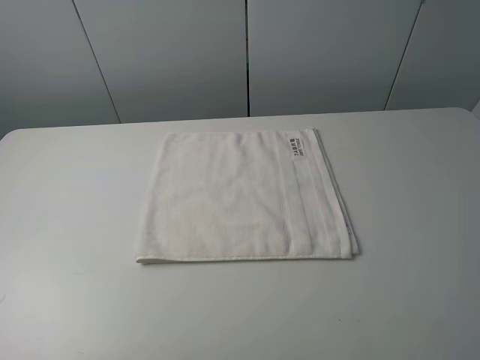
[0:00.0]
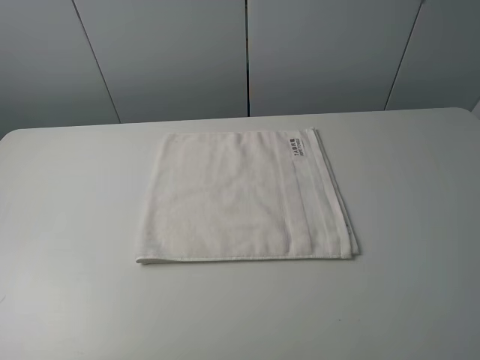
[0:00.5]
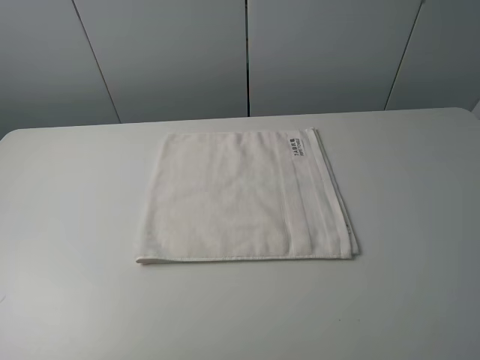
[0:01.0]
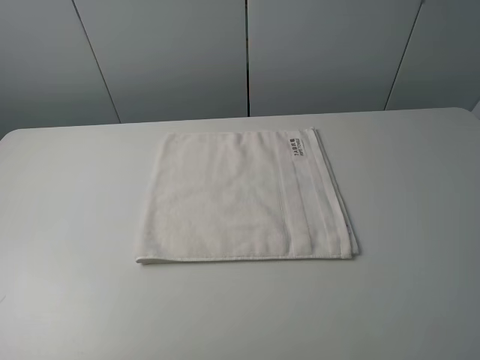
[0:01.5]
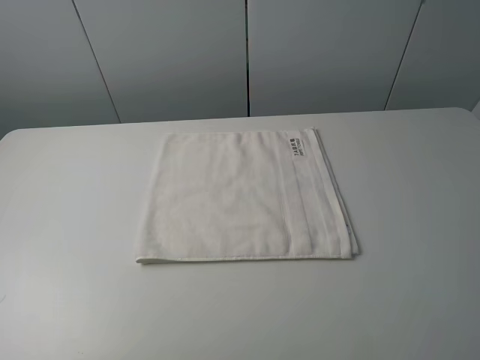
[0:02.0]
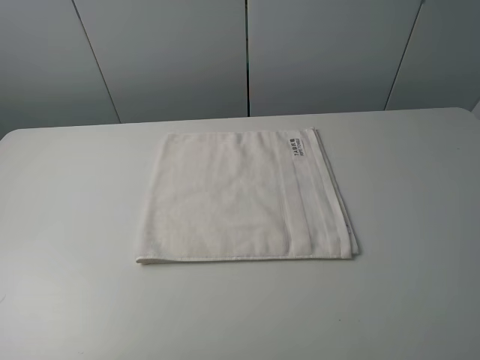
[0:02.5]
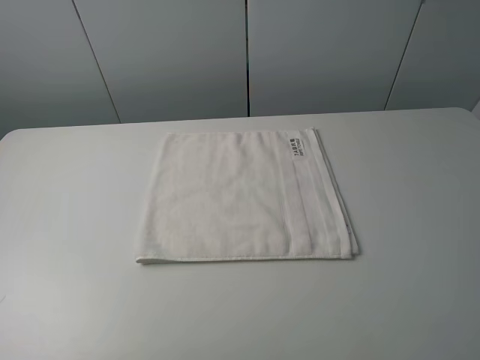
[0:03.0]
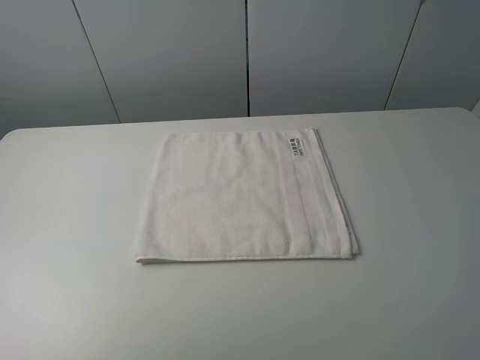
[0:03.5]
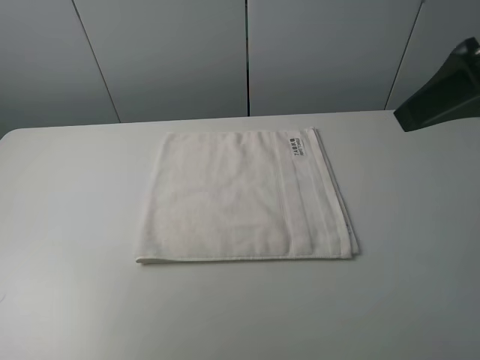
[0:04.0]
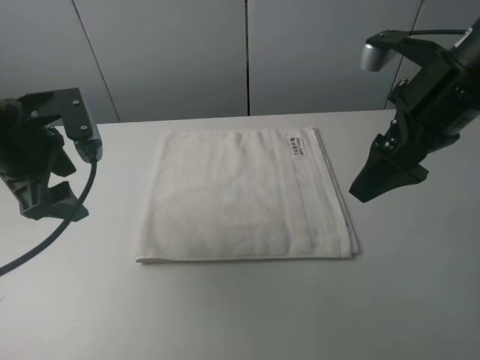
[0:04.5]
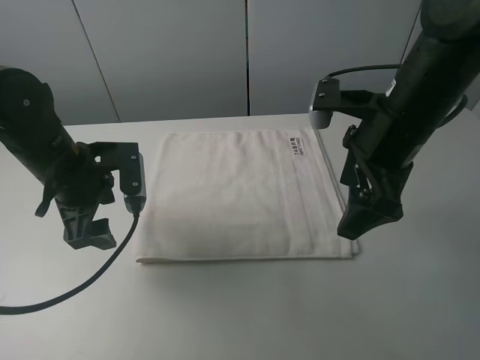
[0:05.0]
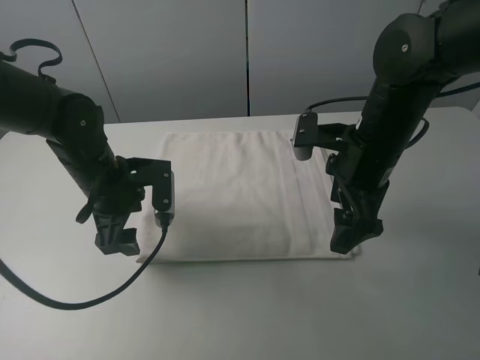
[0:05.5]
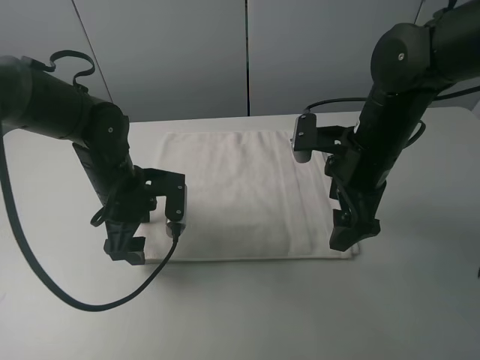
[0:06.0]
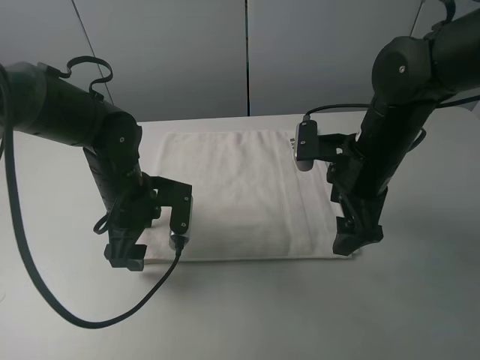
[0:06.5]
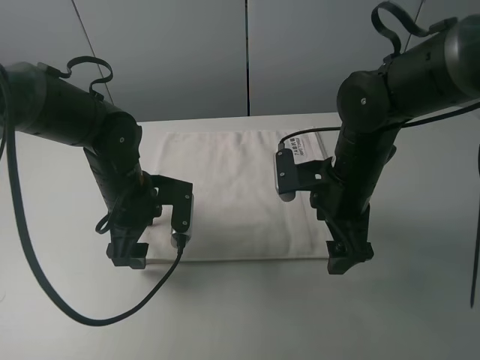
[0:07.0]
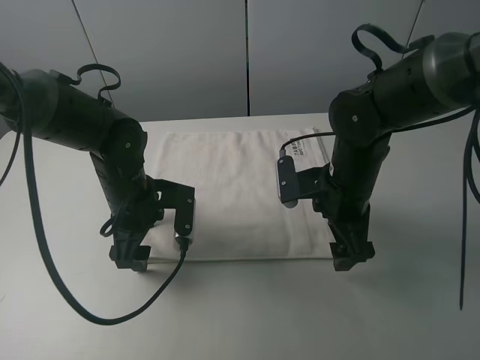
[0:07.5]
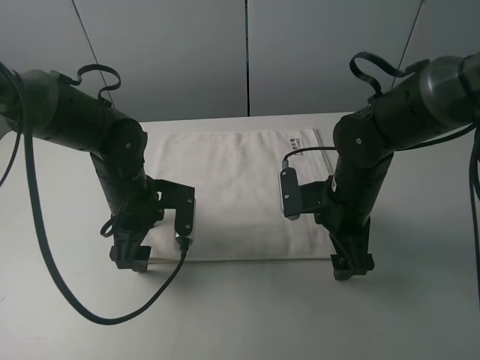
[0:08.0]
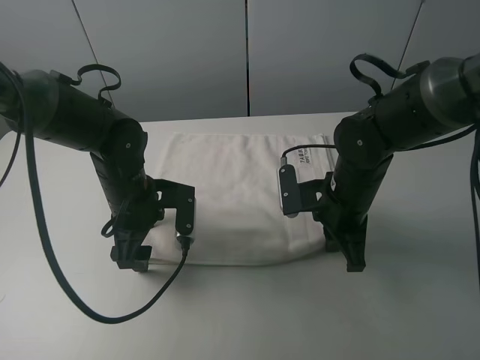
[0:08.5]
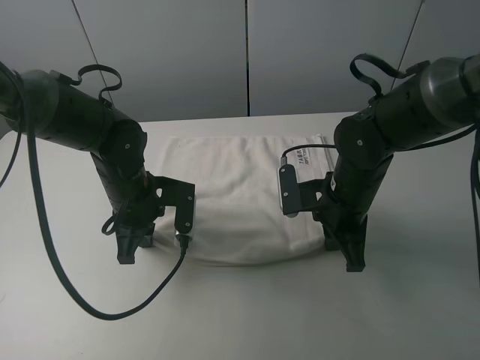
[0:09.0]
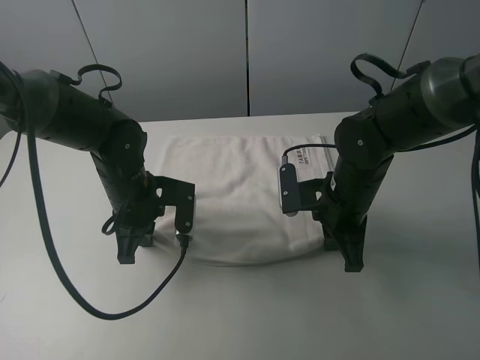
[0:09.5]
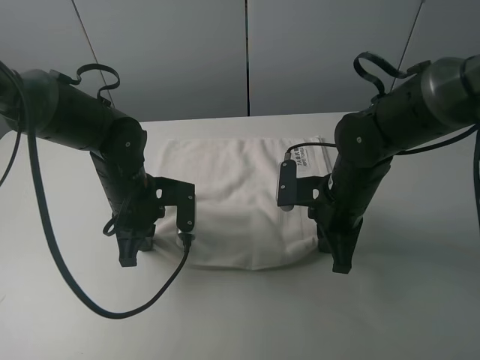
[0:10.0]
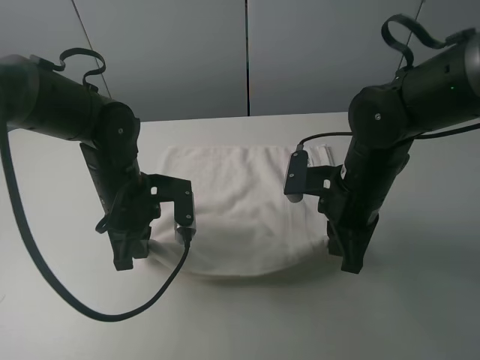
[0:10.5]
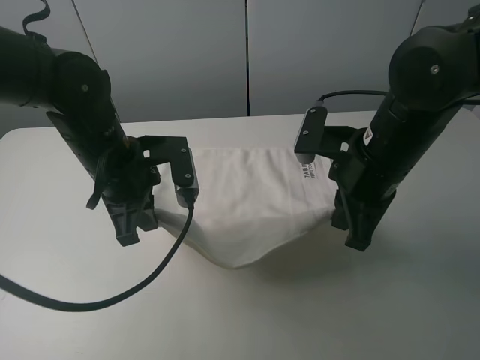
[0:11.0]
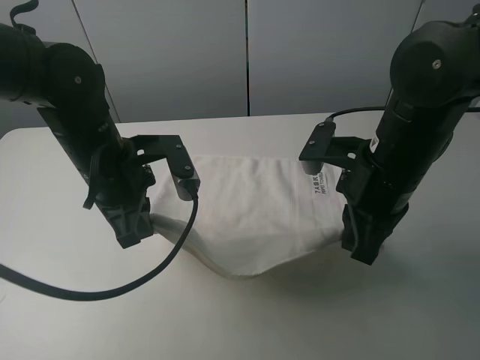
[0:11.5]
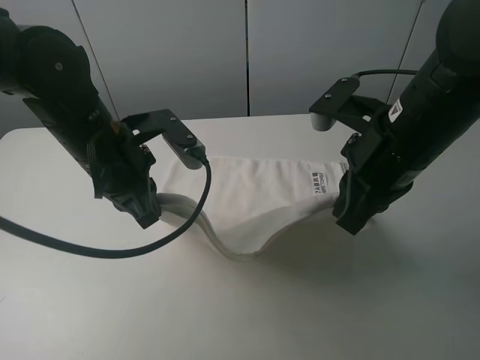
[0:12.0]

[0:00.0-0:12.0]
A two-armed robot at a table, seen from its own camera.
Task of the whole recording: fold the towels on the table.
Step, 0:00.0 to 0:08.5: Grasp the white towel with the right gripper.
0:00.0 to 0:02.0: The two grippers keep their place.
0:02.0 to 0:04.0: The right gripper goes some 20 cm forward.
0:04.0 to 0:06.0: The right gripper moves downward and to the left, roughly 20 cm. Meanwhile the left gripper heads downward and to the right, covering roughly 30 cm.
0:06.0 to 0:08.0: The right gripper heads downward, covering roughly 5 cm.
0:08.0 to 0:10.0: The left gripper closes. Meanwhile the right gripper closes up.
0:10.0 to 0:12.0: Both grippers move upward, approximately 10 cm.

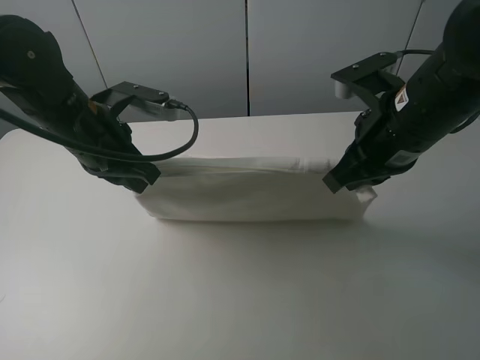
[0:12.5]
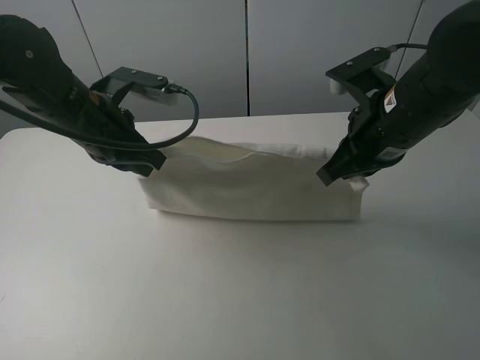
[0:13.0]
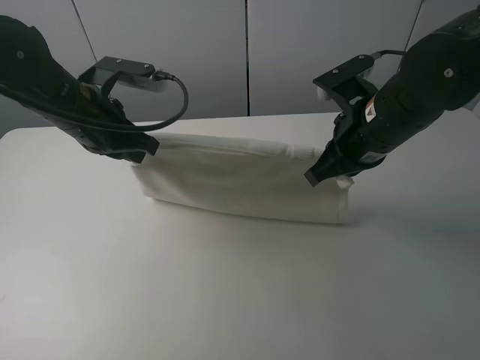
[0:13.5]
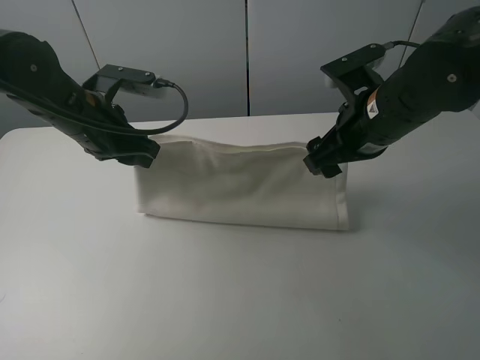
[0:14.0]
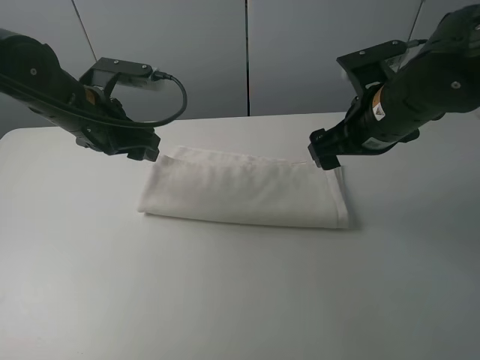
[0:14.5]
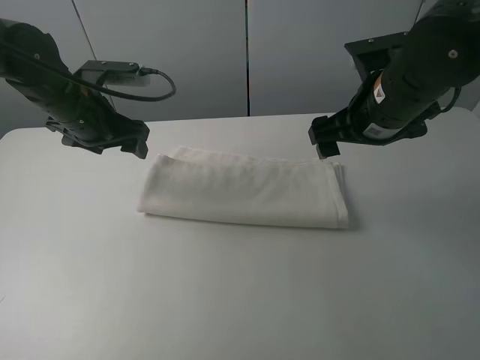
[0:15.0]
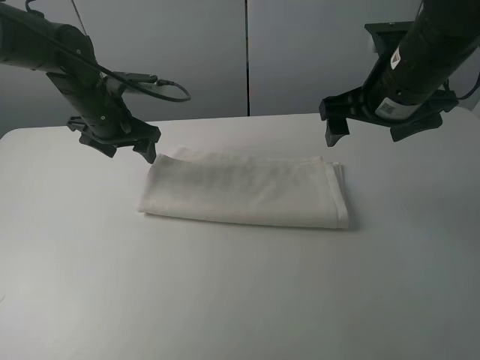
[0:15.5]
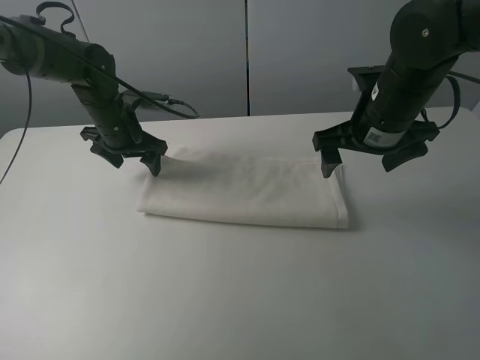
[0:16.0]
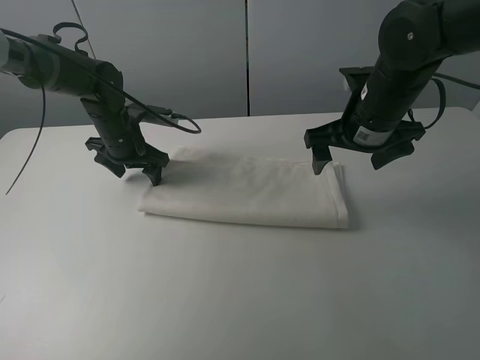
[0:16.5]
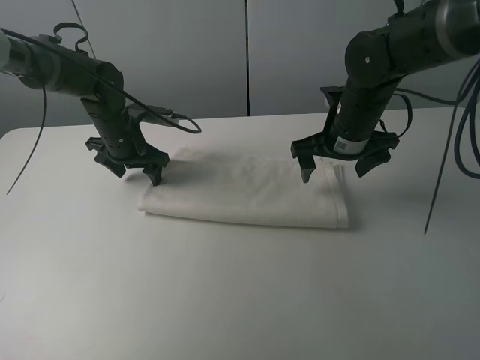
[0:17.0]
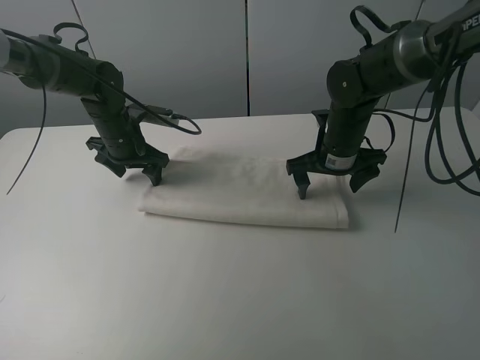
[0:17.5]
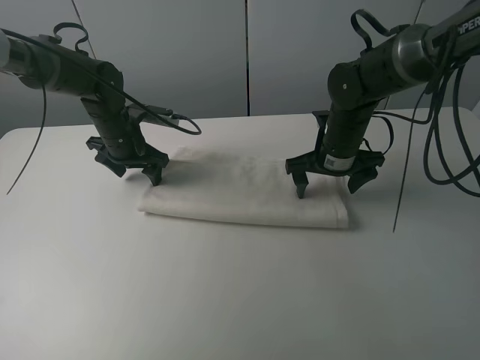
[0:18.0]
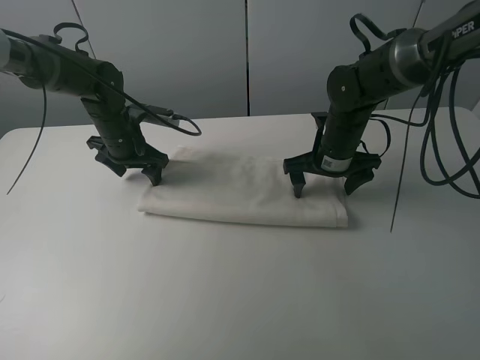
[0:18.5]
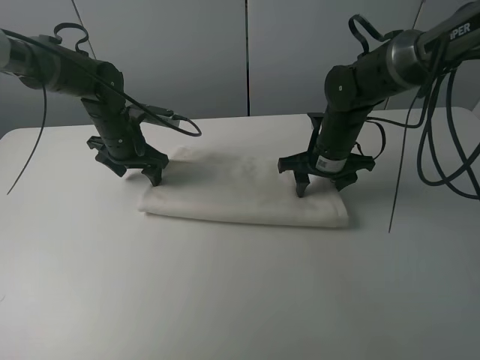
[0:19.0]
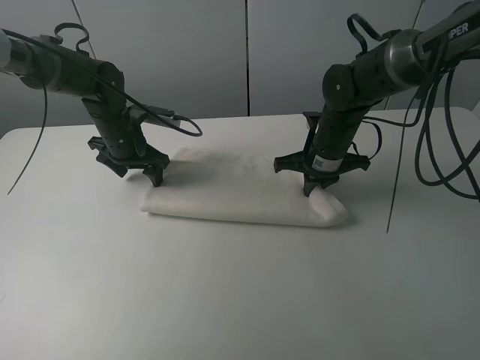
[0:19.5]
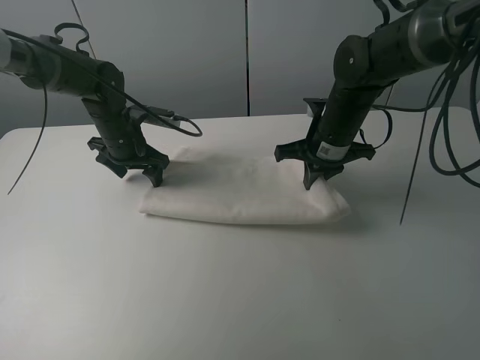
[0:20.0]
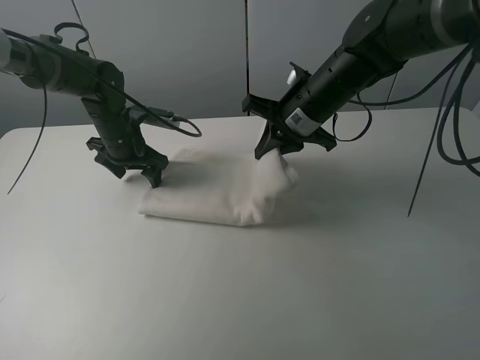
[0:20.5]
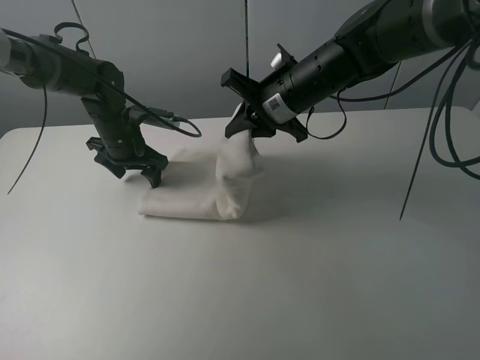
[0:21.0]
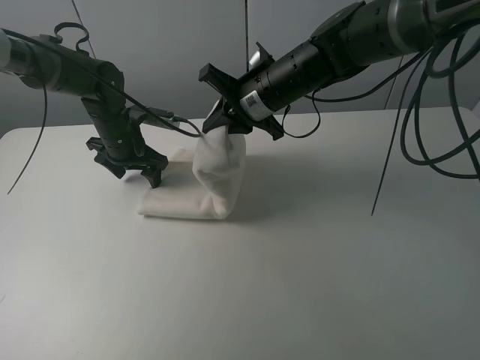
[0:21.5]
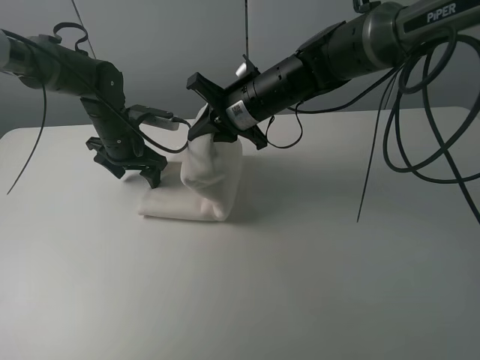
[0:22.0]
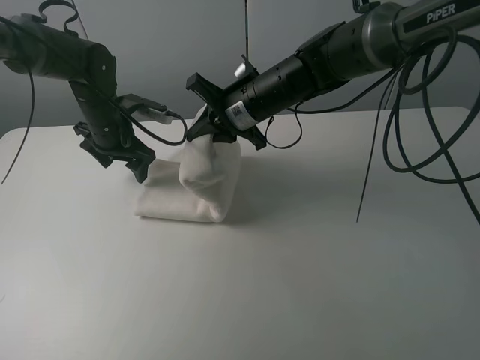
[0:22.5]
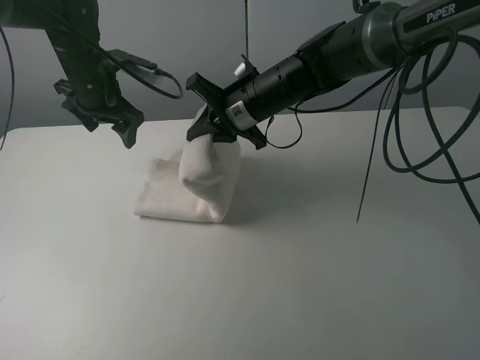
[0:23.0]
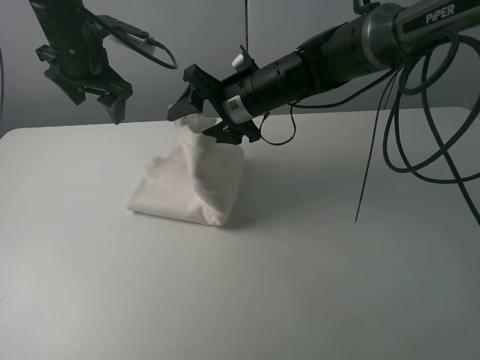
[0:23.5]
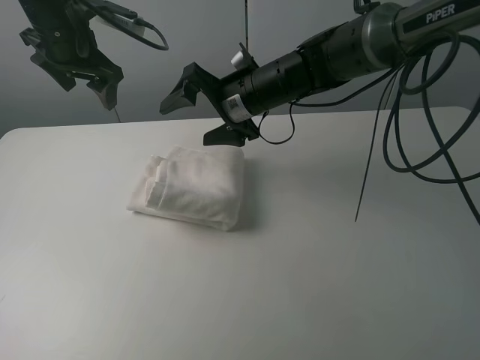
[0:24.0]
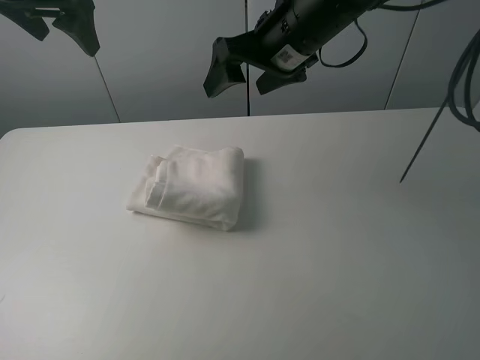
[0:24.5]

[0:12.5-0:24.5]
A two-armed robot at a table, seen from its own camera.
Task of the whole recording: fold the towels on the table.
Step, 0:14.5 to 0:16.0: Press on the white towel with the left gripper.
Step, 0:16.5 to 0:23.5: Fold the white towel from right to left with right gripper.
0:12.5 to 0:14.5: The left gripper opens its fingers; the right gripper opens its fingers.
0:14.5 to 0:16.5: The left gripper shifts some 15 cm forward and downward.
0:16.5 to 0:18.5: The right gripper is displaced downward by approximately 10 cm.
0:18.5 to 0:20.5: The right gripper shifts approximately 10 cm upward, and closes up.
0:20.5 to 0:22.5: The right gripper goes about 5 cm to the left.
0:22.5 to 0:24.5: The left gripper is displaced upward by roughly 25 cm; the right gripper goes about 10 cm upward, and opens up.

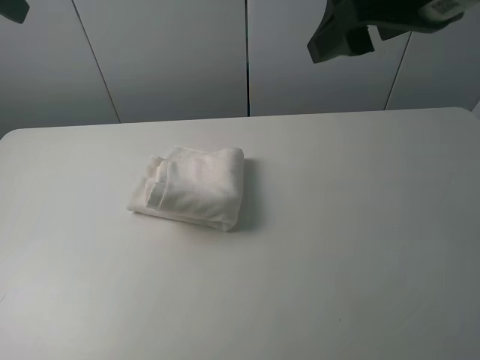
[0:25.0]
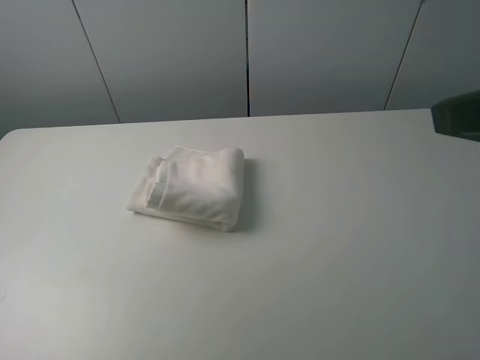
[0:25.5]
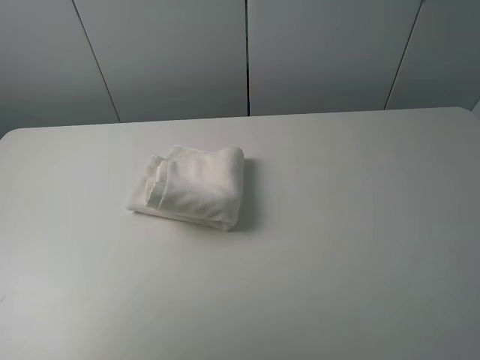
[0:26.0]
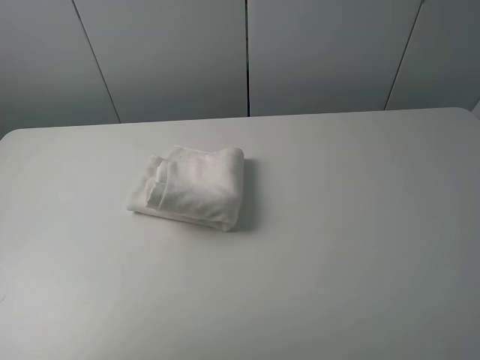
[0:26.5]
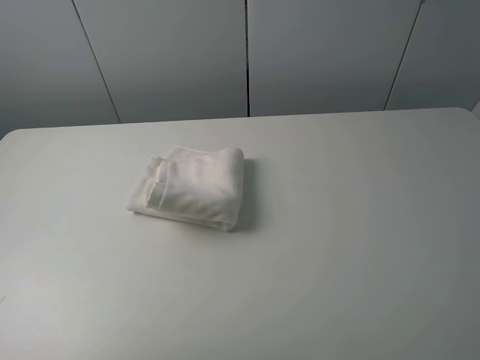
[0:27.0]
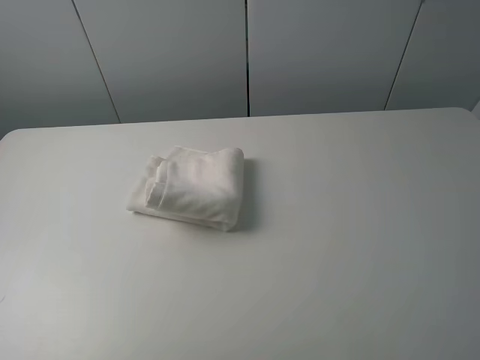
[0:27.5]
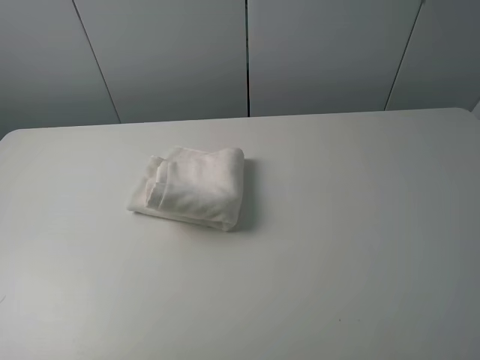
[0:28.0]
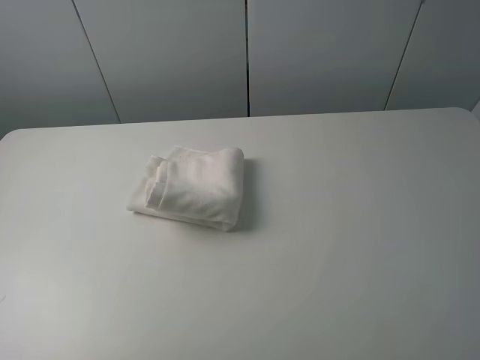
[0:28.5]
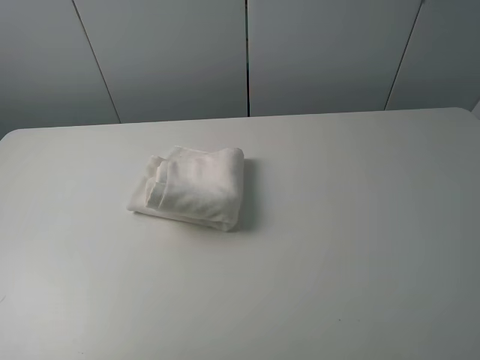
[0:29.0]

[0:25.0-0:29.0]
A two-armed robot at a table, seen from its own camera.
Task of the whole recording: fold the towels on the table.
0:25.0 to 0:27.0: The right gripper shifts roughly 25 cm backward and to the right.
